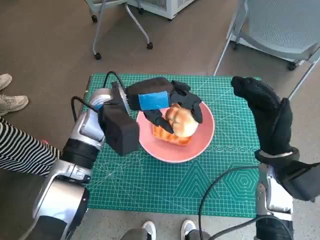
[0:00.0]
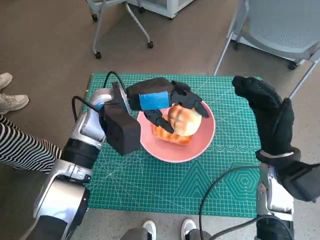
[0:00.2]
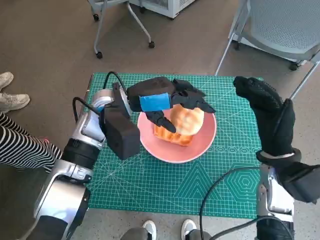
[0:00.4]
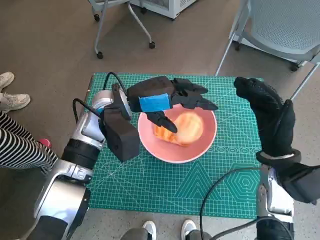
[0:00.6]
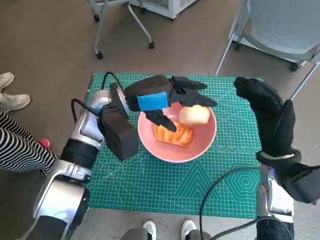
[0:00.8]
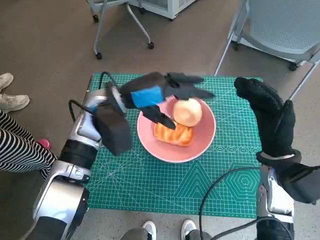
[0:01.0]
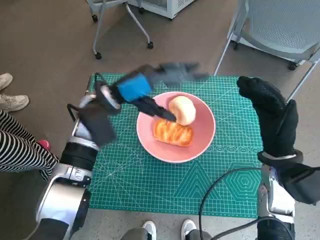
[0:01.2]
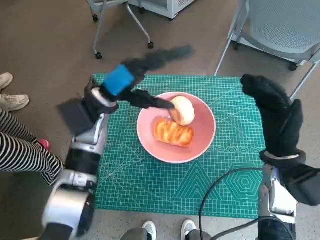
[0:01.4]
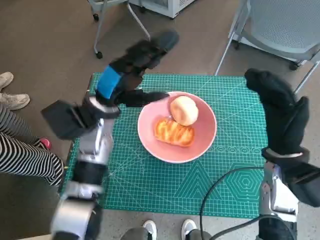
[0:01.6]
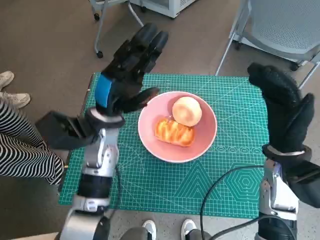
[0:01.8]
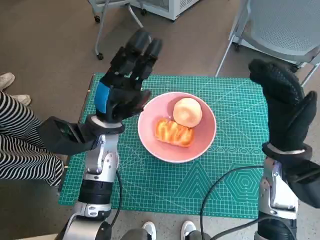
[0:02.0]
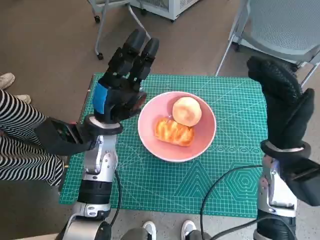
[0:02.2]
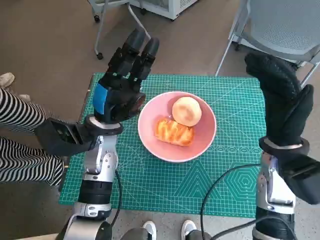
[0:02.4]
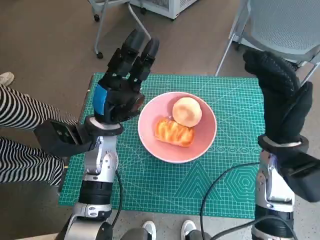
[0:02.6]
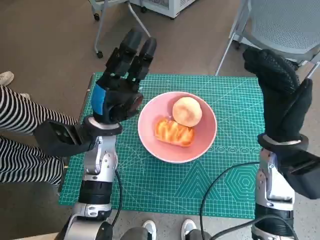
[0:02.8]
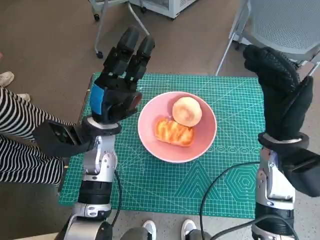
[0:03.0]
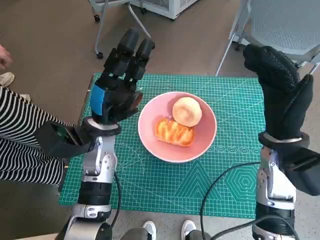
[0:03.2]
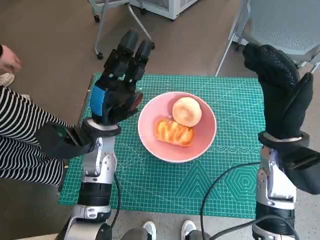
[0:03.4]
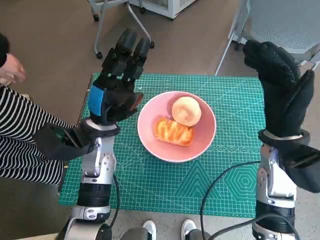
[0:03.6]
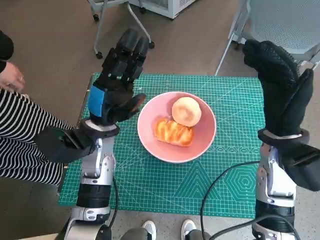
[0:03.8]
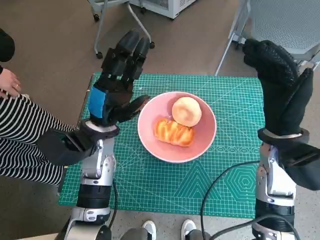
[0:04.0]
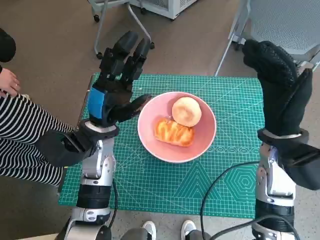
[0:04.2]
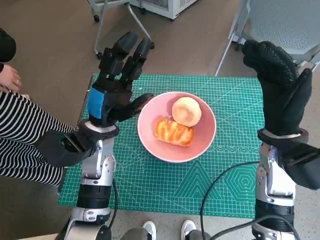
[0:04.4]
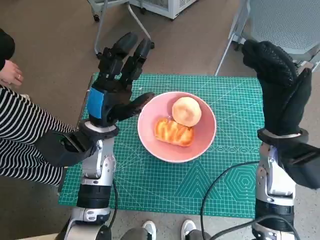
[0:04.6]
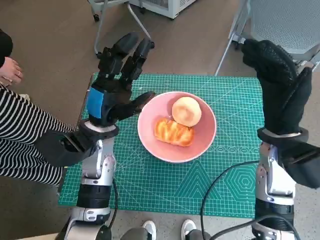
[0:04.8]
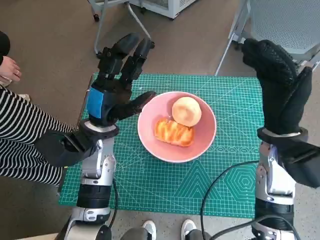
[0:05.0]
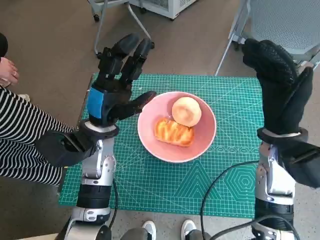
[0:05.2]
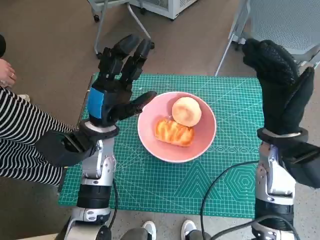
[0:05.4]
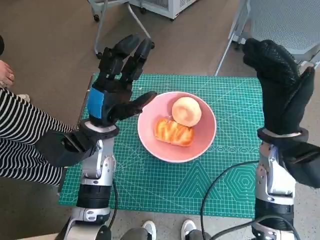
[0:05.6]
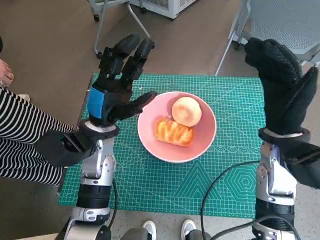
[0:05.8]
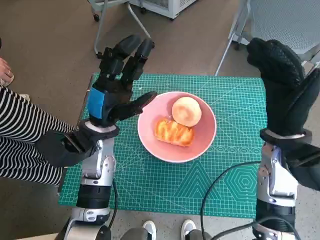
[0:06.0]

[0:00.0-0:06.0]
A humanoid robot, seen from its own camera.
Task of the whole recording: Push the bowl into the center of the table and put the bread into the bowl.
0:03.0 to 0:04.4: The hands stay close to where they were, moving slightly.
0:04.4 to 0:06.0: Neither hand changes place.

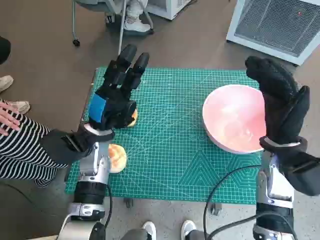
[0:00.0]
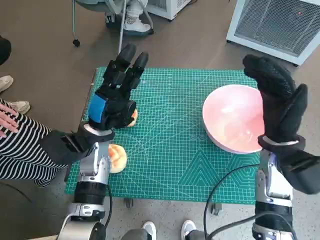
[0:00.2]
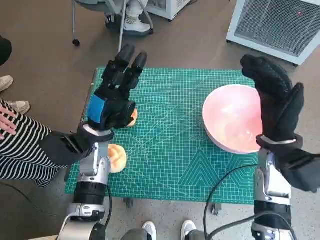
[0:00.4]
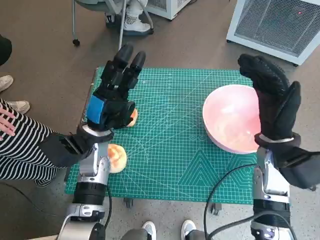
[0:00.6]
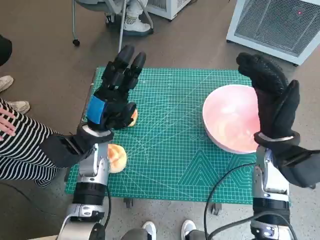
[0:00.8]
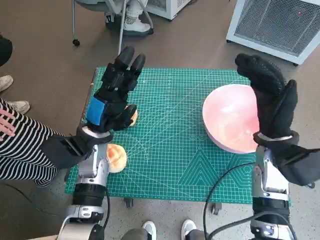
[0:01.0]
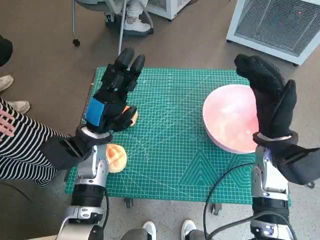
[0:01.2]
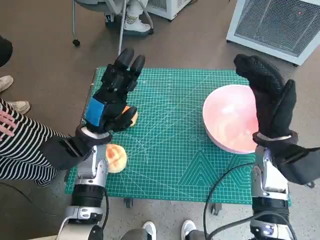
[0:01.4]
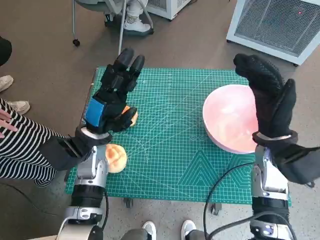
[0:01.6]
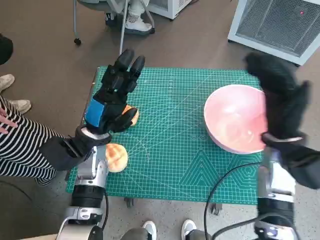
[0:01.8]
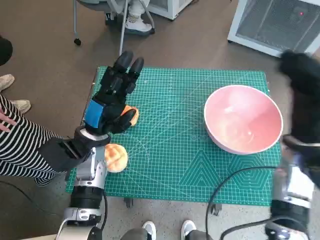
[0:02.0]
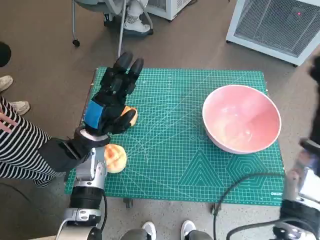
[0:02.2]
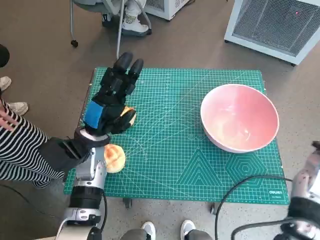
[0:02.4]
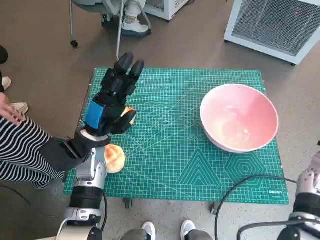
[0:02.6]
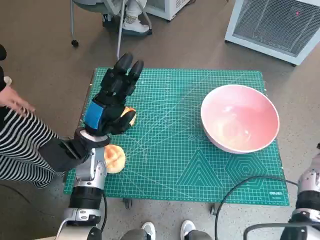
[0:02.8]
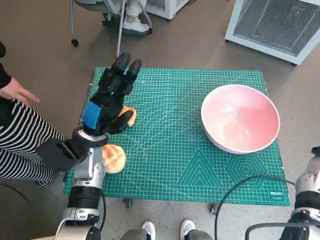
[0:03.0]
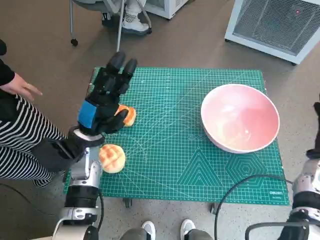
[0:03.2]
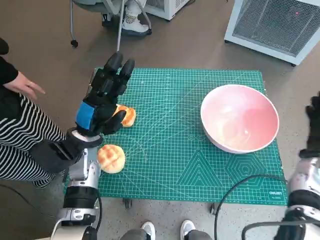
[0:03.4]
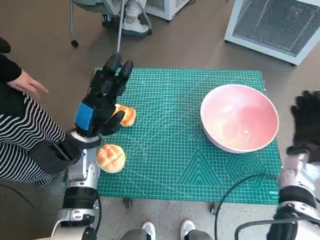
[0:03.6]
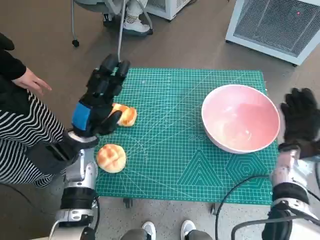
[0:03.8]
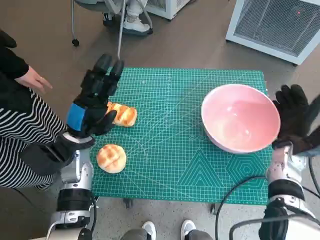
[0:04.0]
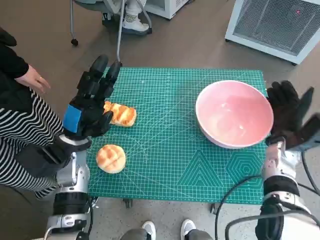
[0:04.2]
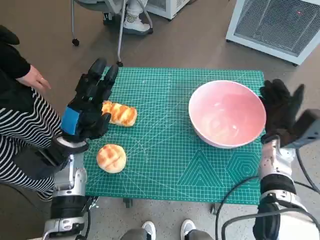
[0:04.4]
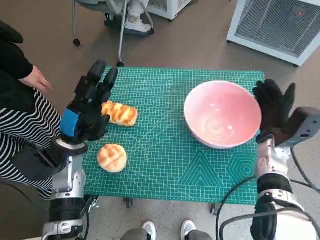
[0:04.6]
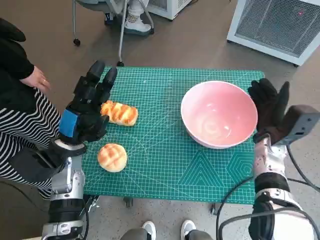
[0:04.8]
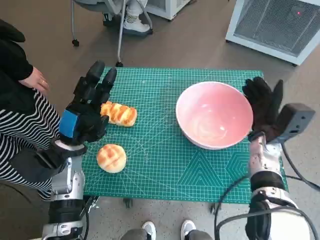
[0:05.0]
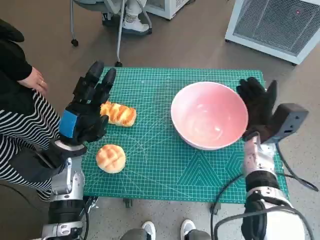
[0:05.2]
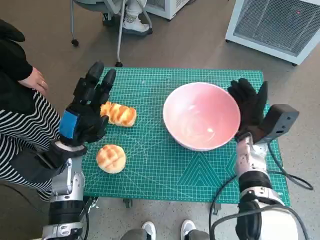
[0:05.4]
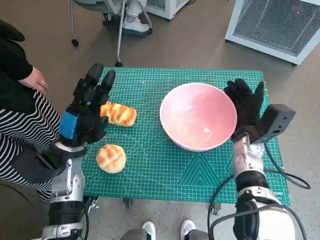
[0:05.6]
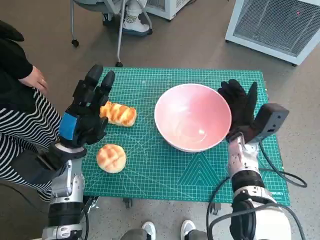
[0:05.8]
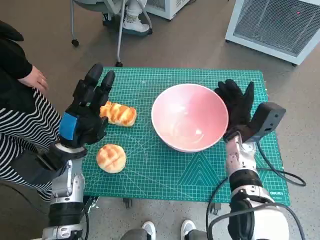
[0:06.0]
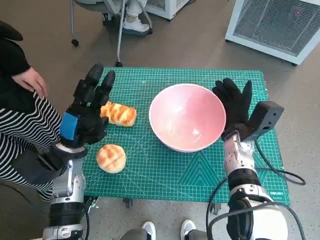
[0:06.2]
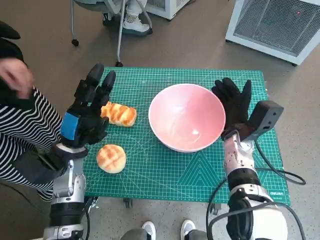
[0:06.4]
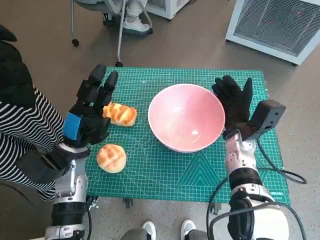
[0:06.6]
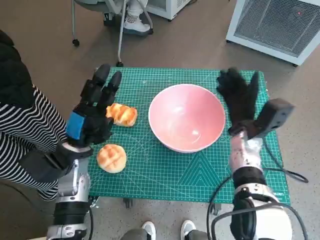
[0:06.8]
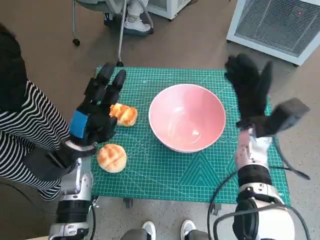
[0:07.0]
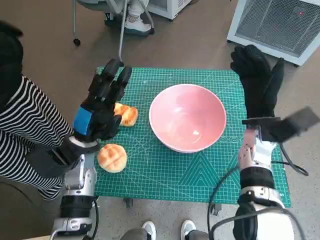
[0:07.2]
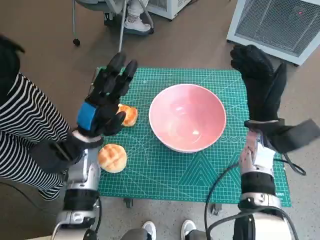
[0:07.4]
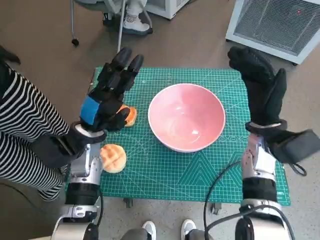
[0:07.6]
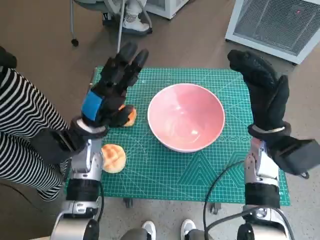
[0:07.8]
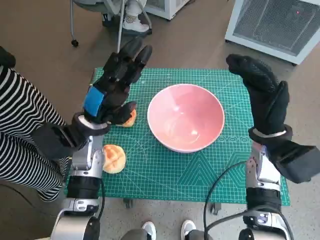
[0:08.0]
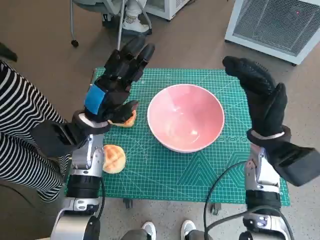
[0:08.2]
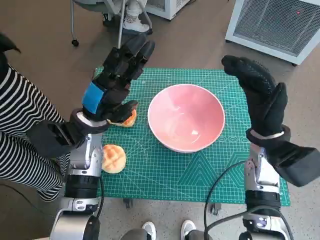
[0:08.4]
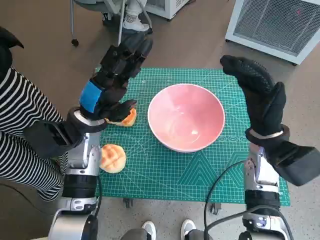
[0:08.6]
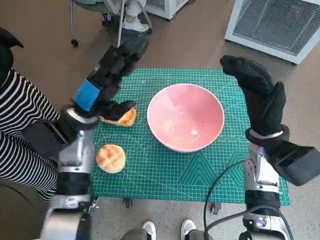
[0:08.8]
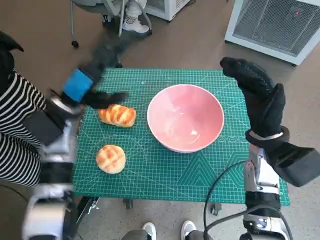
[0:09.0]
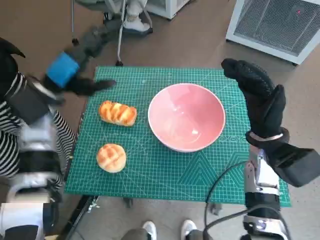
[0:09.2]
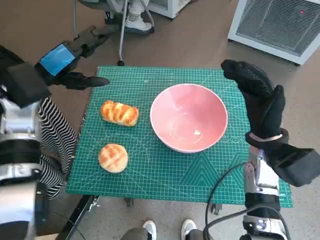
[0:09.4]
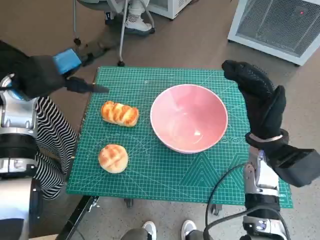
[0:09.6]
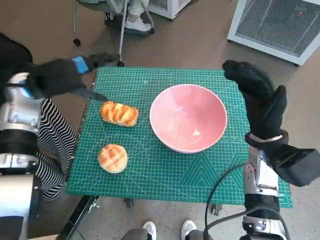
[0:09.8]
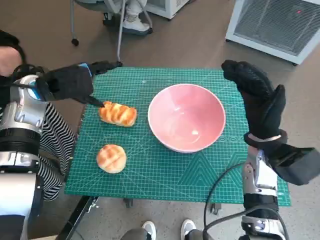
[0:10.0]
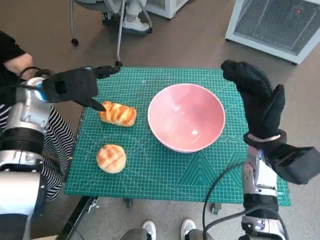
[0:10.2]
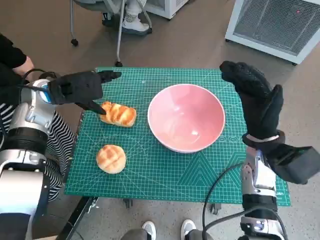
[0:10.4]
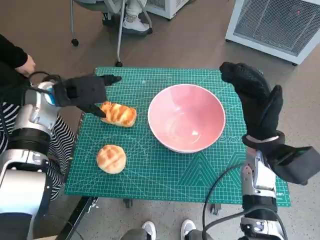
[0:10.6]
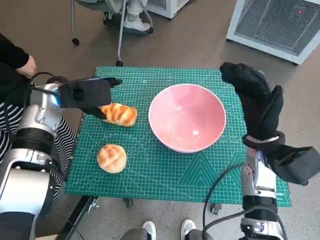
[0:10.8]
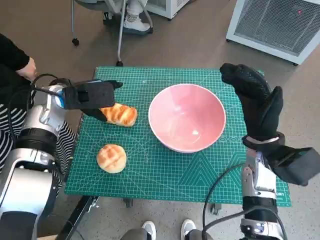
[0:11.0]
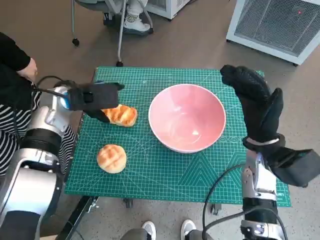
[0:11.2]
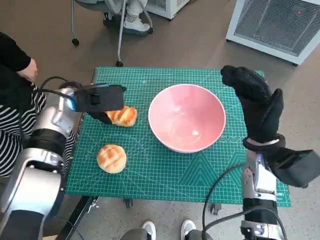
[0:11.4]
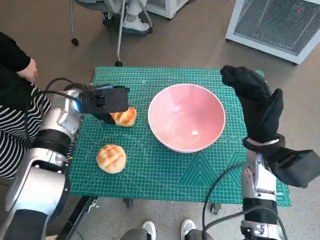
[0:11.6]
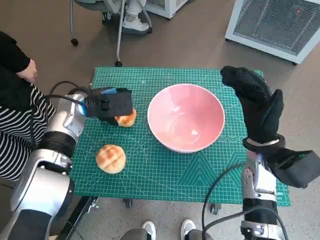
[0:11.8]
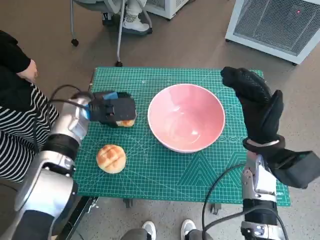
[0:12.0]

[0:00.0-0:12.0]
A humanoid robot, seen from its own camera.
Task of the whole recording: Push the bowl into the center of the table and put the bread into the bowl.
Step, 0:00.0 to 0:06.8: Move the pink bowl to the center of table with right hand.
0:01.6 to 0:03.0: The right hand goes roughly 15 cm to the right.
0:03.0 to 0:04.4: The right hand shifts roughly 10 cm to the left.
0:04.4 to 0:06.0: The right hand goes approximately 10 cm to the left.
0:06.0 to 0:07.6: The left hand ends up approximately 5 cm from where it was. The right hand is displaced upward by approximately 5 cm.
0:07.6 to 0:09.0: The left hand travels upward by some 5 cm.
0:09.0 to 0:10.4: The left hand changes place by about 5 cm.
0:10.4 to 0:12.0: The left hand is displaced downward by roughly 5 cm.

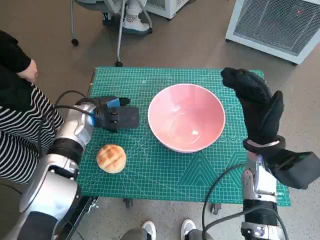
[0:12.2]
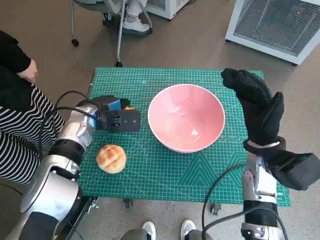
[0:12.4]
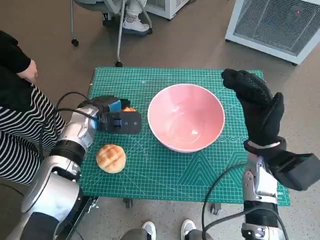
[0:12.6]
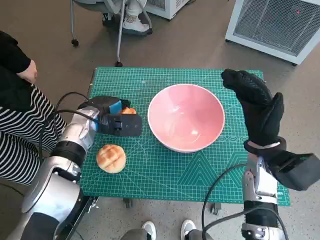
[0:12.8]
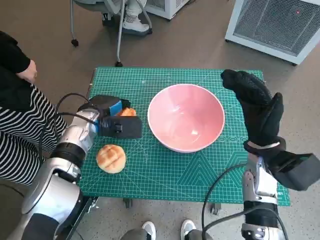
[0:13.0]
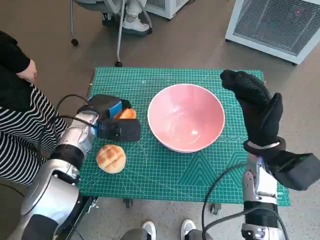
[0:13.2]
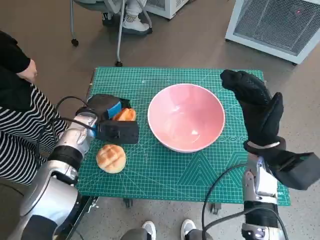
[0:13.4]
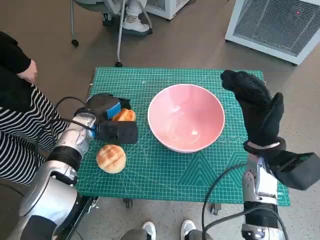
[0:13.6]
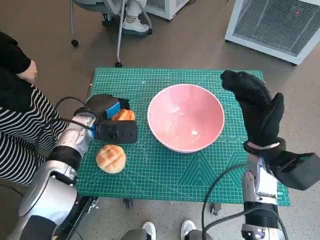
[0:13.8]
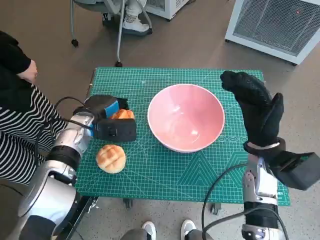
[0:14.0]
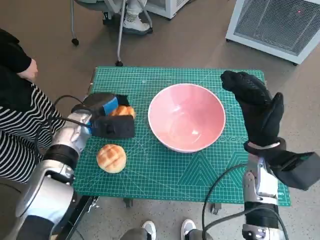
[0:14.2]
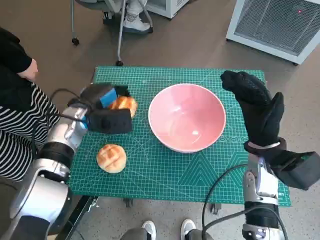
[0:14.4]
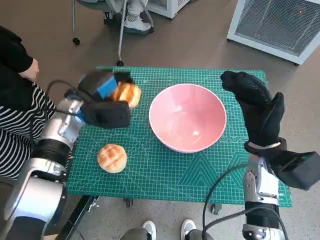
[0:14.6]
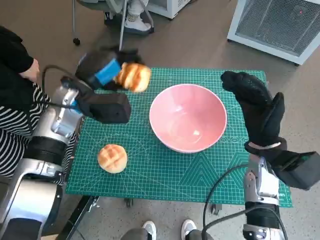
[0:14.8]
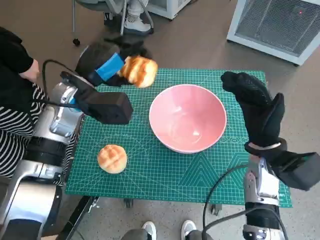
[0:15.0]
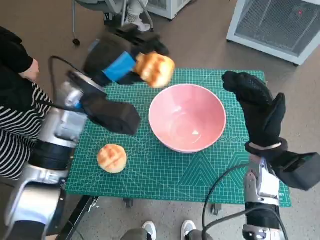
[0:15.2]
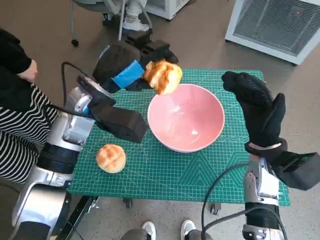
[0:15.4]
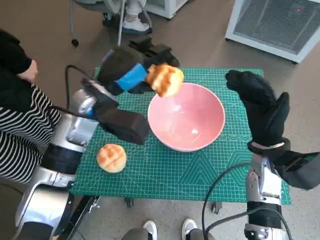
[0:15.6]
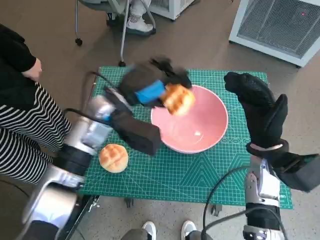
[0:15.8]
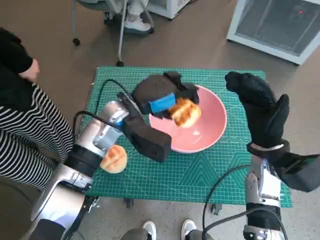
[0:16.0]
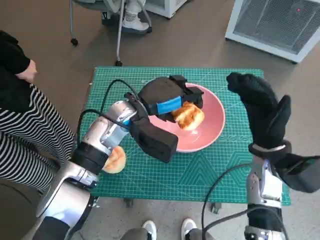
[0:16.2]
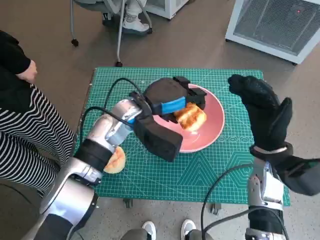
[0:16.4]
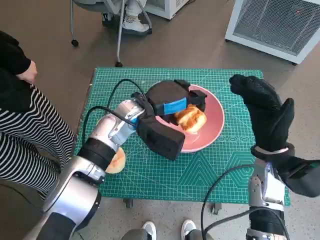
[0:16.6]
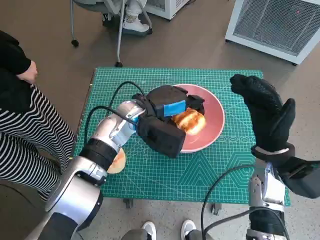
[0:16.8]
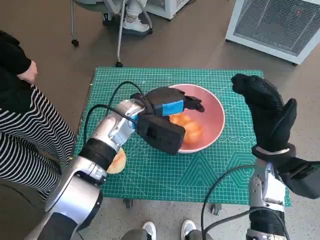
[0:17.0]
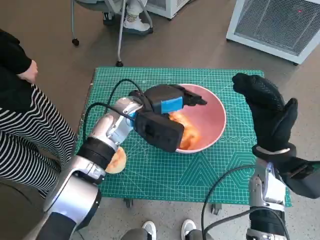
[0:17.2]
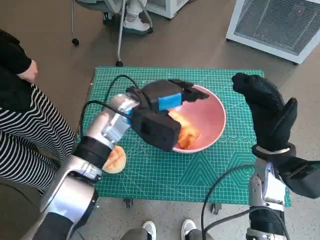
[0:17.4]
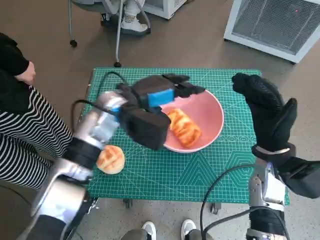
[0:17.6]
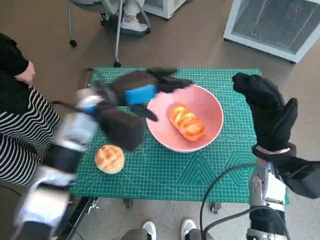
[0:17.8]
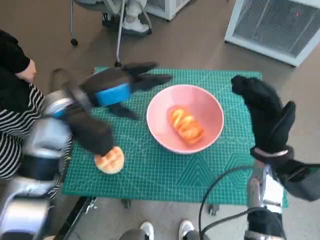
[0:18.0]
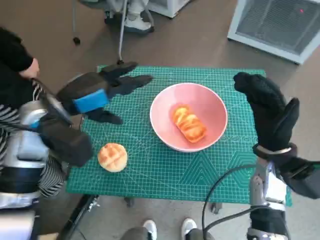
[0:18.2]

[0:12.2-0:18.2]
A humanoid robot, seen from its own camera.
Task of the whole recording: Push the bowl into the center of the table and put the bread into the bowl.
Step, 0:13.4 to 0:17.6: Place the long bread in pink bowl with left hand.
0:12.2 to 0:13.8: The hands make only small movements.
0:13.8 to 0:15.2: The left hand moves upward, approximately 15 cm.
0:15.2 to 0:16.6: The left hand heads to the right and downward, covering about 10 cm.
0:16.6 to 0:18.2: The left hand is displaced to the left and upward by roughly 15 cm.
